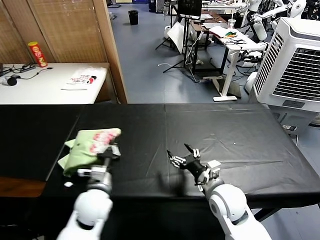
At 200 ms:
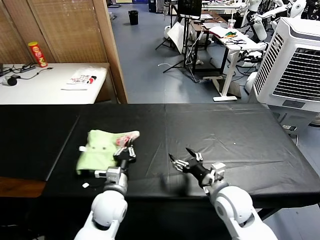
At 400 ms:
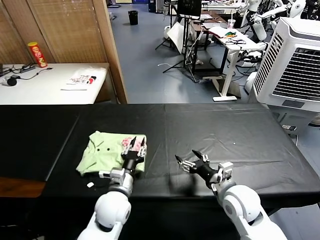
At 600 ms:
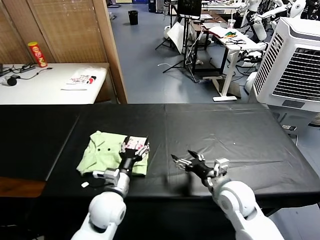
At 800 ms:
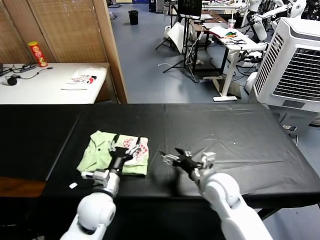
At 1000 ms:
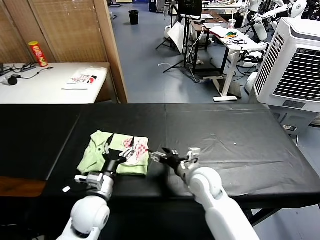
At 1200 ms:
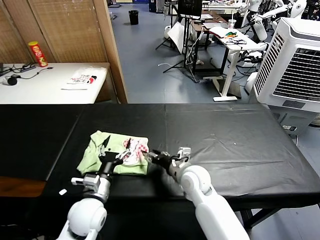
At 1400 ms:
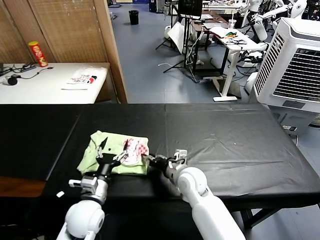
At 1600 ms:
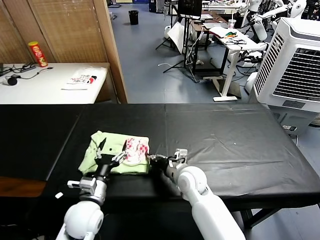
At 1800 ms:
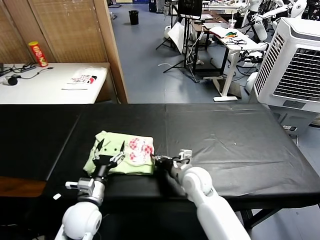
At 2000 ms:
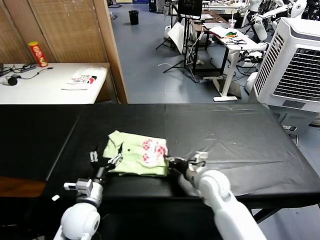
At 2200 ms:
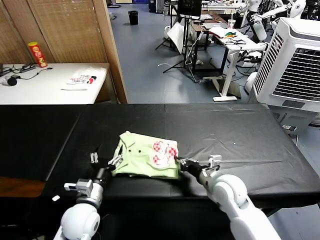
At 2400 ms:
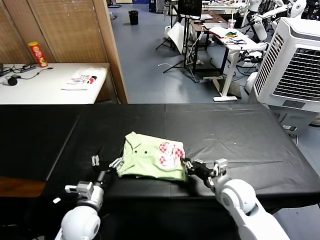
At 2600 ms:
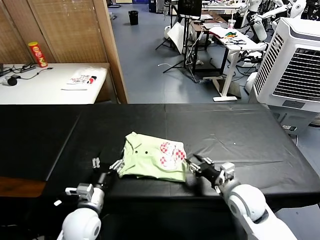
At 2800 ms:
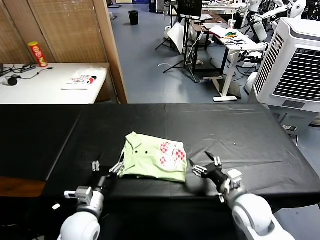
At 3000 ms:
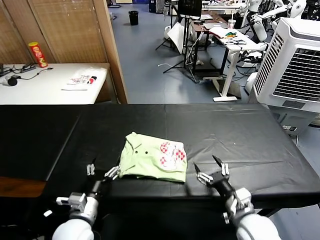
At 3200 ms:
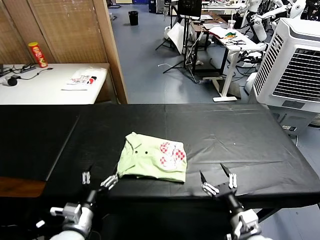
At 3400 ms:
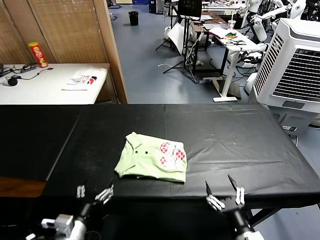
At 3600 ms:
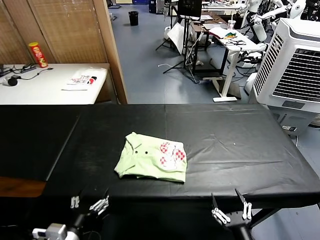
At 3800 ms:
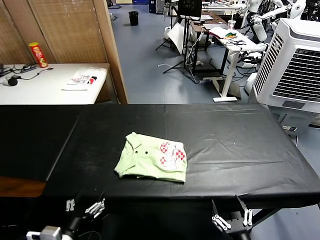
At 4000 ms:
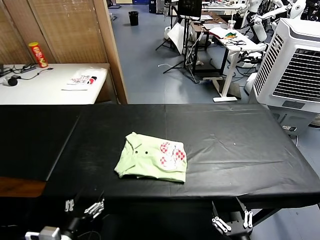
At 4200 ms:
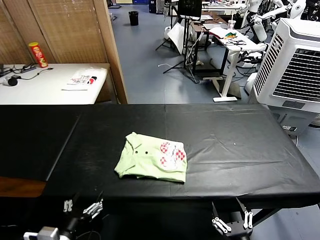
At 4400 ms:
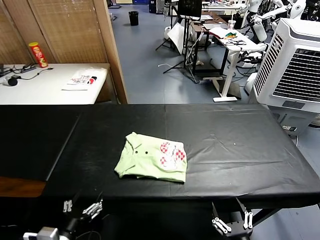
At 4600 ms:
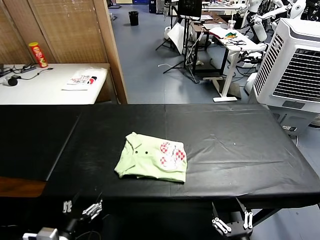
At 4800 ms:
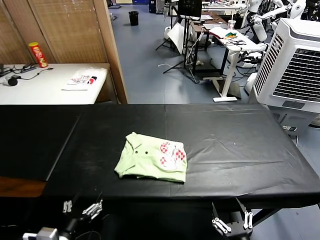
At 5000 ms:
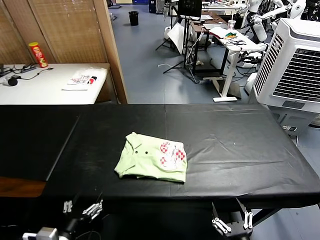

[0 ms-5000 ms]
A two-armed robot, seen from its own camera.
Task of the whole recording: fold and organize the clothes.
Step, 600 ms to 2400 ms: Drag the clothes to the center of the table.
0 ms to 1600 ms: The right gripper shifts roughly 10 cm to the left and forward, and closes up, while the left gripper goes to the right and returns, roughly 10 cm each way, and opens its fingers.
1600 ms to 3400 ms: The left gripper shifts approximately 10 cm backward. Meanwhile the right gripper is displaced backward and to the right by roughly 30 cm, and opens.
3400 ms to 5000 ms: The left gripper is displaced backward by approximately 5 cm; the right gripper moves backward, roughly 10 cm.

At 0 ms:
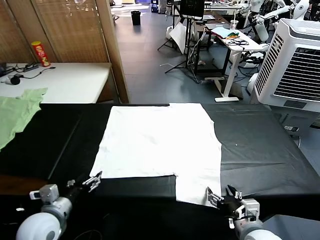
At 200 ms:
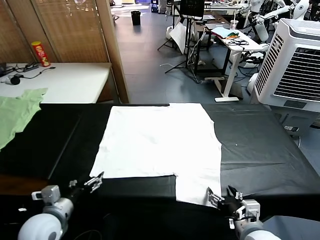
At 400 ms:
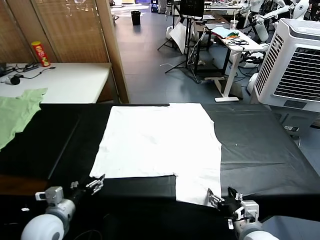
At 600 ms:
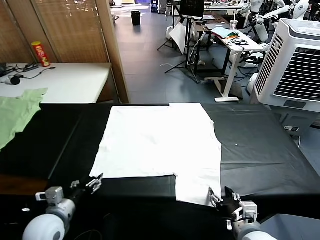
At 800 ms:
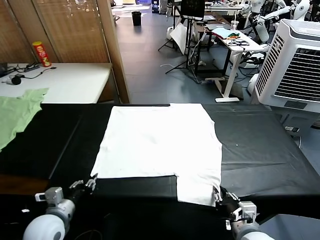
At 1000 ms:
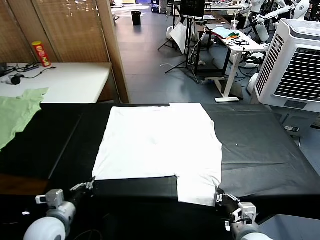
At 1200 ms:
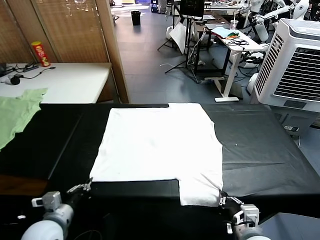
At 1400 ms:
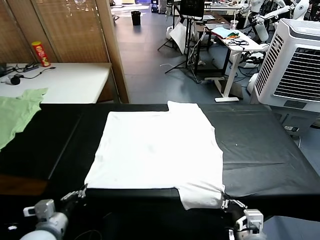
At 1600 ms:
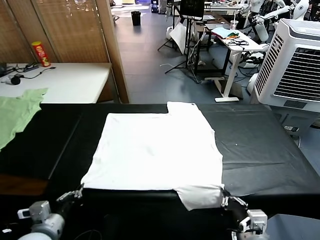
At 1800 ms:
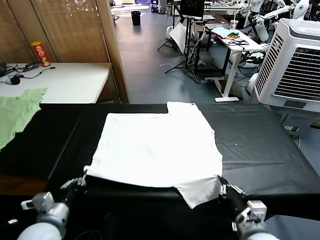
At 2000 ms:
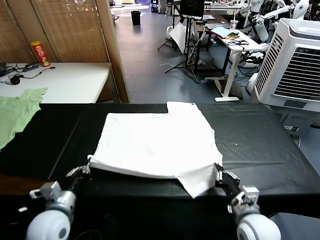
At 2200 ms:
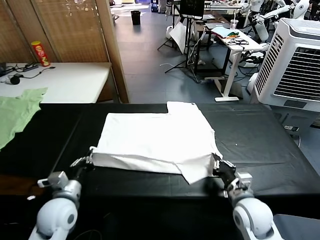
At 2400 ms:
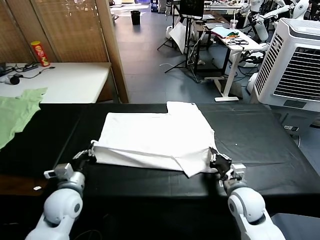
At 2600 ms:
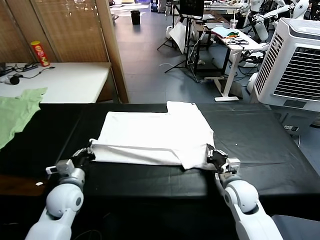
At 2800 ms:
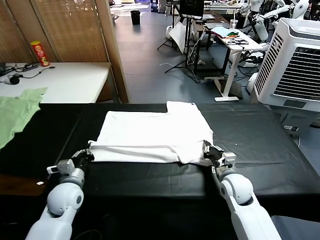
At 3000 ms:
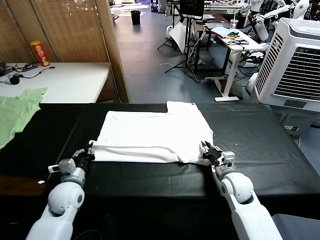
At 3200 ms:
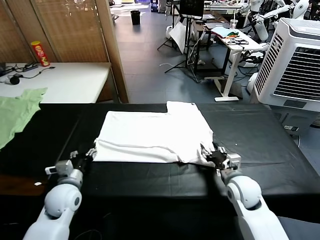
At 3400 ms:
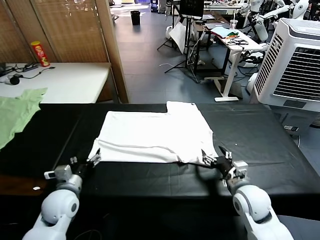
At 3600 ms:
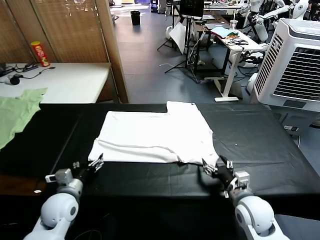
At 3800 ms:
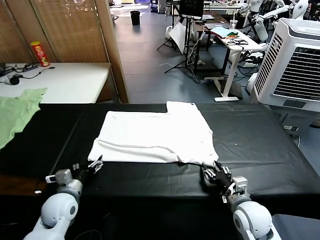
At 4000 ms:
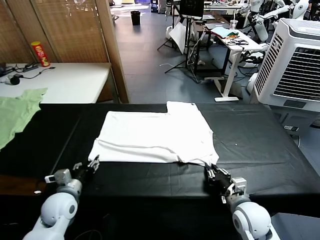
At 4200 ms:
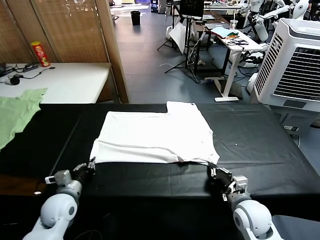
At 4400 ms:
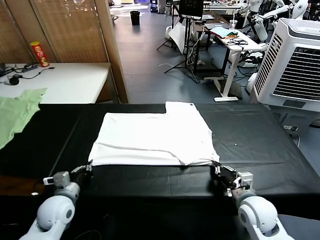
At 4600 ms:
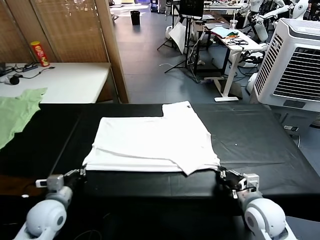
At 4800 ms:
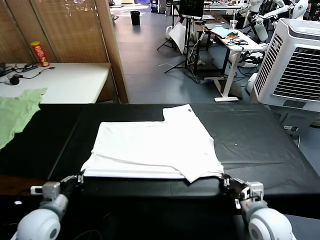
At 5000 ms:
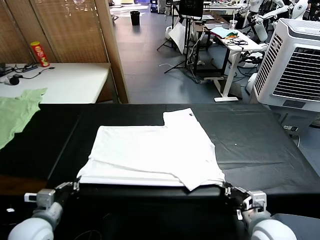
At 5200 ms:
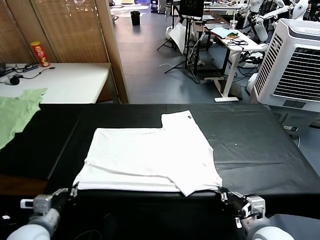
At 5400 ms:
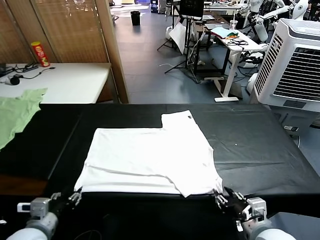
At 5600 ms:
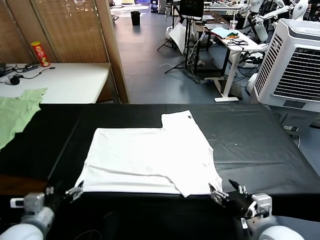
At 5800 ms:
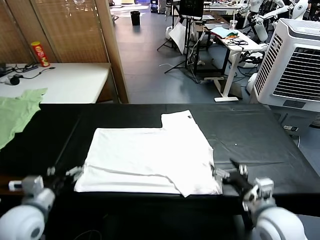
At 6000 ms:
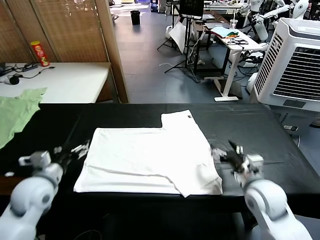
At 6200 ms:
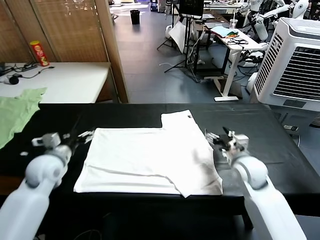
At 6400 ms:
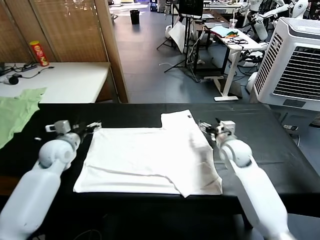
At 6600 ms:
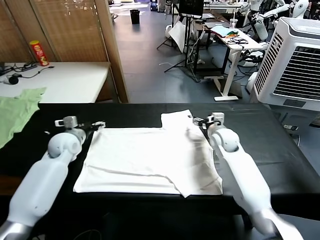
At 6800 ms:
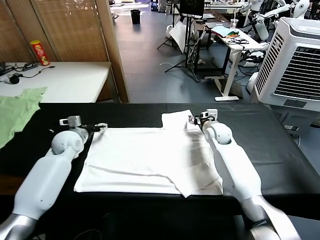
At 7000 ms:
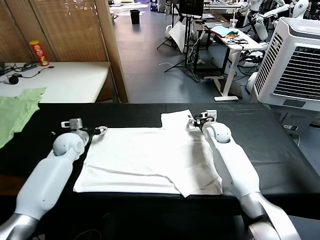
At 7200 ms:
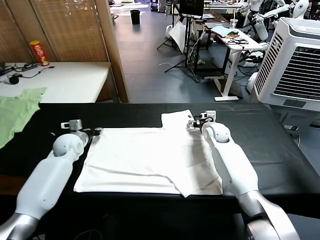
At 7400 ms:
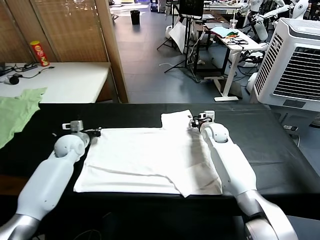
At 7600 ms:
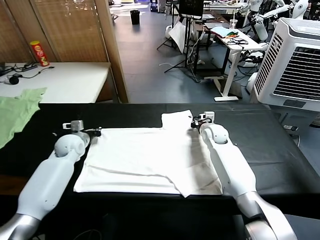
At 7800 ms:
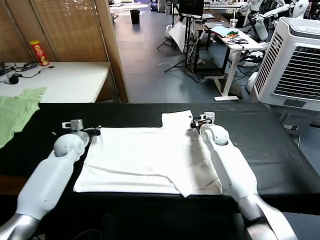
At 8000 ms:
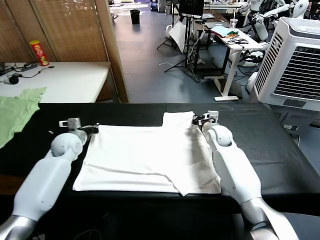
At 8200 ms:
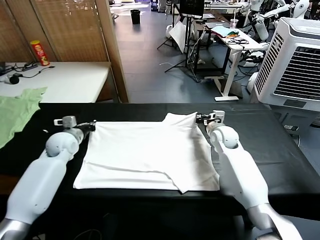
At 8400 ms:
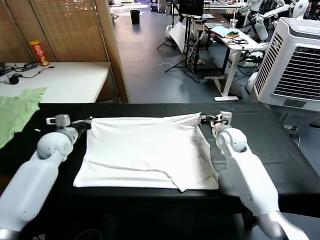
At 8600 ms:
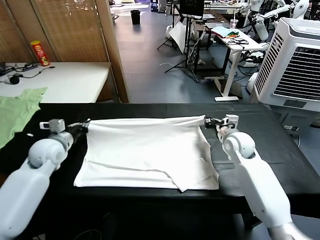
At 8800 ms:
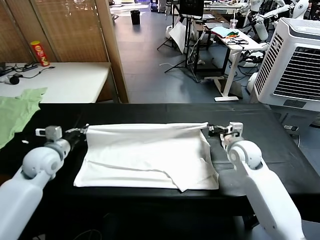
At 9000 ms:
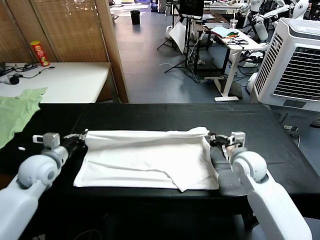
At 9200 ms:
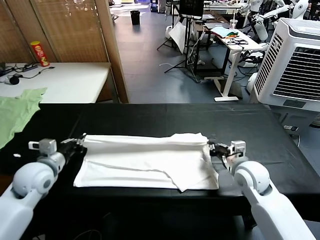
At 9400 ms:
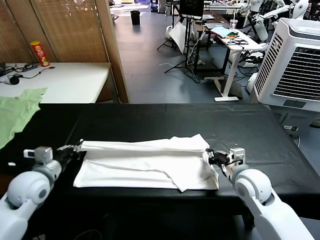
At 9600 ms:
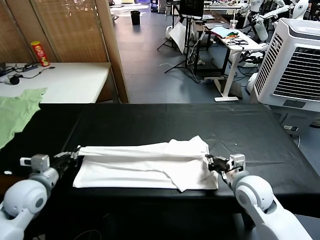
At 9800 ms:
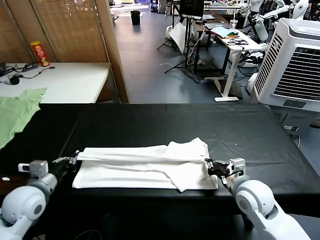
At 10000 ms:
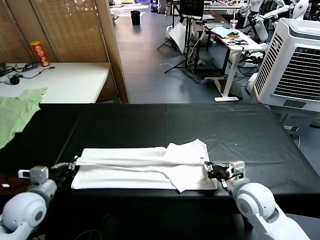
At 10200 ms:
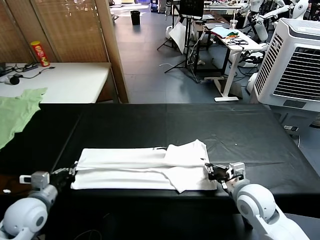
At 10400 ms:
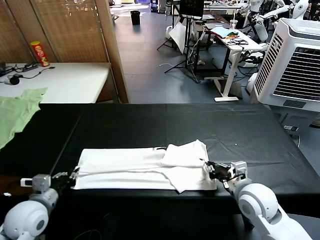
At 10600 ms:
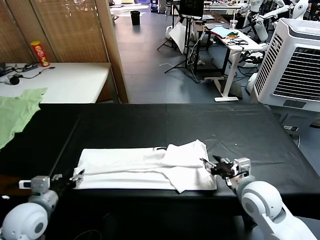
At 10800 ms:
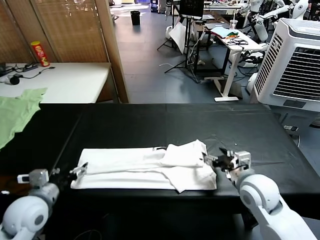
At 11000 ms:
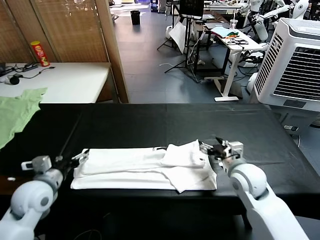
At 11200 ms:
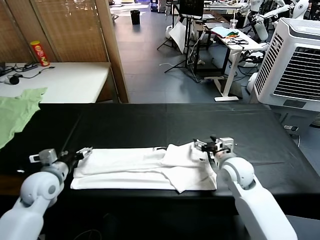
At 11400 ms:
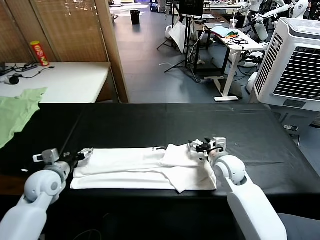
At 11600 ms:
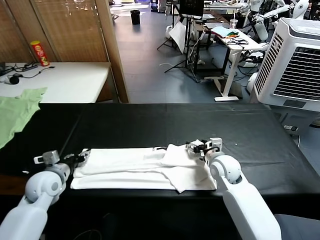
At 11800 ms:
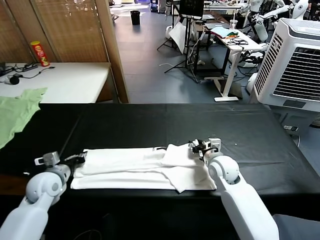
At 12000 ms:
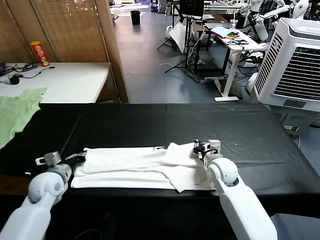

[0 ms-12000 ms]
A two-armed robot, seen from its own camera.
Task of the whole recording: fold and organize the clothes.
Step, 0 ms to 1000 ms: use both grippers simultaneously to clamp the lower edge of the clothing fabric.
Step, 1200 ms to 3000 ms: use both grippers to drag the lower edge of the fabric forward and fold it over the upper edge.
Step, 3200 ms to 5400 ms: Drag the clothes downward with both gripper.
Step, 5600 ms to 7400 ms: use both grippers simultaneously to clamp the upper edge of the clothing fabric.
Step, 7600 ms to 10600 ms: use both grippers to drag the upper edge of the fabric backward and fold it over the lower edge.
1600 ms to 3000 ms: The two grippers go approximately 15 cm forward. The right gripper opens its fingers. The left gripper opens up.
3000 ms to 4400 ms: The left gripper ends up roughly 5 cm from where it was, and closes its fingers. Meanwhile the right gripper heads backward, covering roughly 10 cm, and closes.
4400 ms to 6000 ms: The right gripper shifts some 10 cm forward, and opens up. The left gripper heads upward and forward, covering some 10 cm, and opens up.
6000 ms to 7600 ms: Both grippers move forward, approximately 20 cm. The right gripper closes its fingers. Meanwhile the left gripper closes.
7600 ms to 9000 ms: The left gripper shifts roughly 15 cm backward and upward, while the right gripper goes roughly 20 cm backward.
9000 ms to 10400 ms: Both grippers travel together backward, some 10 cm. The left gripper opens. Meanwhile the right gripper opens up.
10400 ms to 12000 ms: The right gripper goes roughly 15 cm forward, downward and to the left, and closes. The left gripper shifts about 10 cm forward, and closes up.

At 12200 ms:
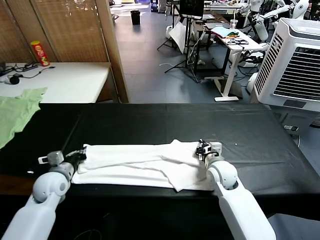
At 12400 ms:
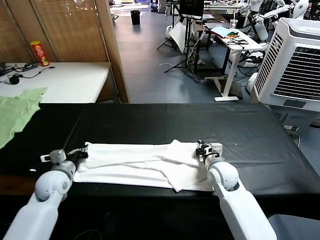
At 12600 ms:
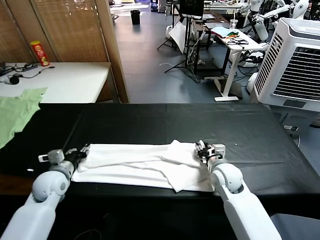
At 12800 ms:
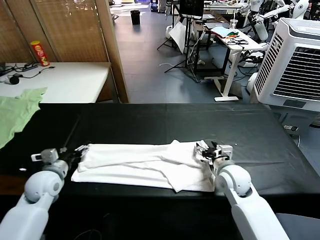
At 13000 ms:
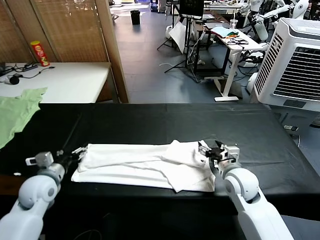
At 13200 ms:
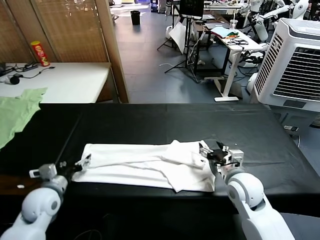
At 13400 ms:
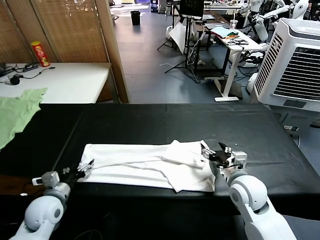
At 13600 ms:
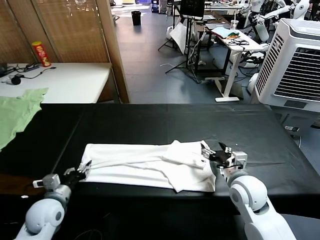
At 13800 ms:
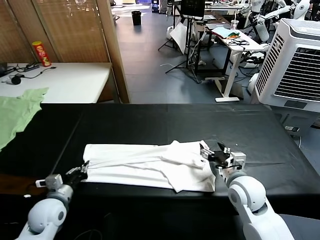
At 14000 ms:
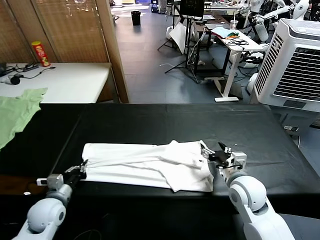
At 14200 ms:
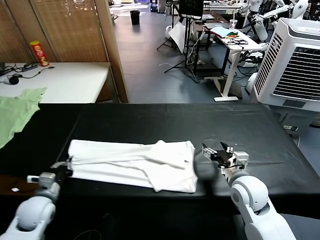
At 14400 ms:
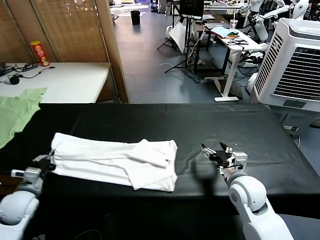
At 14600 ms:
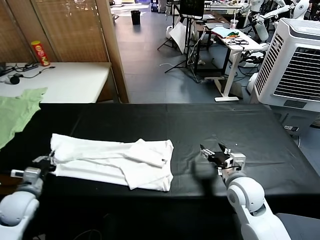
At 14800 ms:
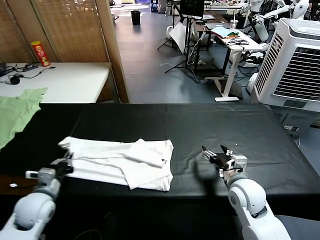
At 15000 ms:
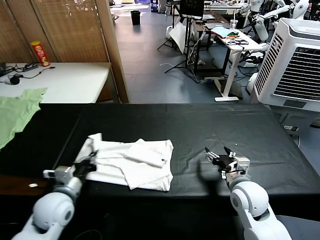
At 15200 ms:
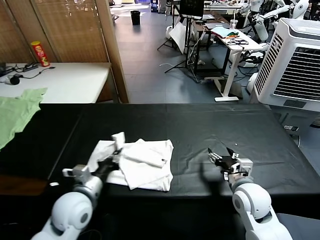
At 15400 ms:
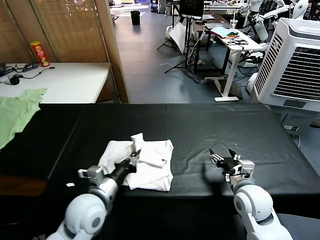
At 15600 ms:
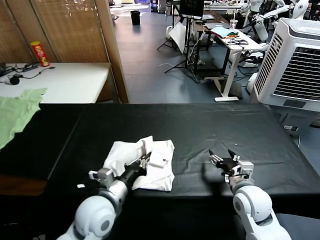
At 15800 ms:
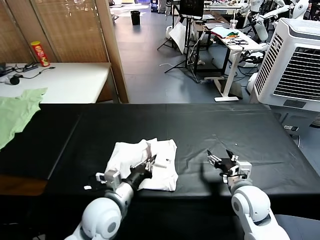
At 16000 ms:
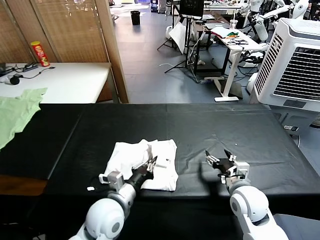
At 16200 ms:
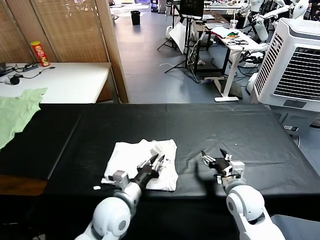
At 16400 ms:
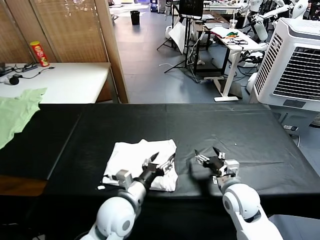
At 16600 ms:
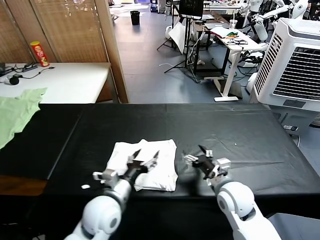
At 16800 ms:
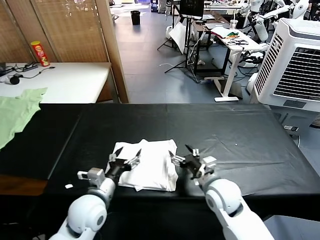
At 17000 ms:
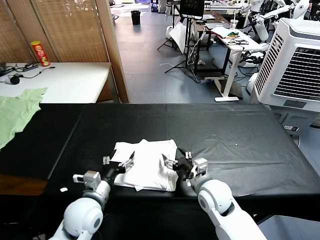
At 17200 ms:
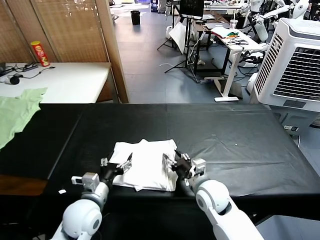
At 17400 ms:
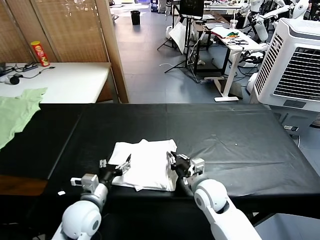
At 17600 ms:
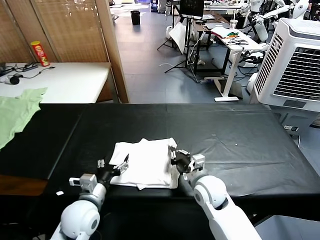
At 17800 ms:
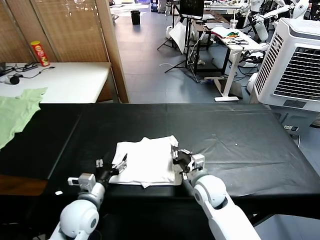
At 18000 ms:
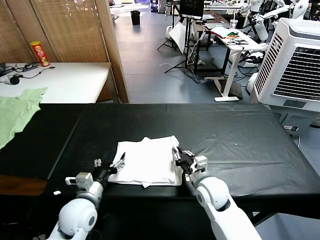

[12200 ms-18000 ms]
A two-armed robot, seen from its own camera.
Task of the whole recording: fold and organize the clothes.
Step, 12200 ms to 13800 ms: use the left gripper to clamp the left edge of the fabric.
Step, 14000 ms to 16400 ms: use the left gripper to drag the left edge of the fabric to the left and folds it over the right edge.
12200 ms to 13600 ms: The left gripper goes approximately 10 cm backward, and opens. The right gripper shifts some 10 cm backward and upward, and opens.
13600 ms to 15000 ms: The left gripper travels to the right and upward by approximately 10 cm, and closes its fingers.
15000 ms to 16600 ms: The left gripper goes some 10 cm to the right, and opens its fingers, while the right gripper goes some 5 cm to the left.
16600 ms to 18000 ms: The left gripper moves to the left, approximately 5 cm; the right gripper moves roughly 5 cm, and closes its fingers.
